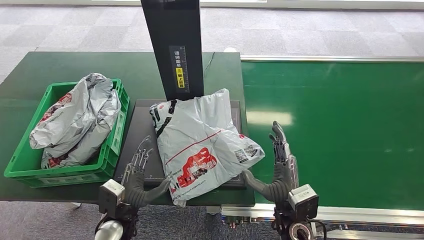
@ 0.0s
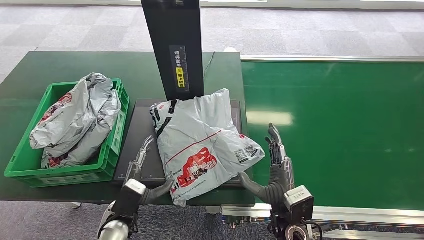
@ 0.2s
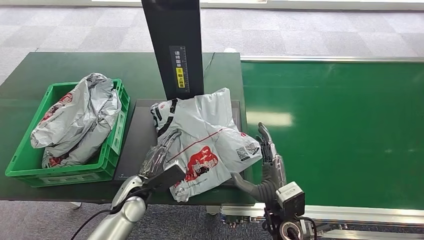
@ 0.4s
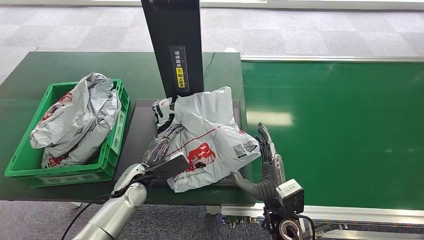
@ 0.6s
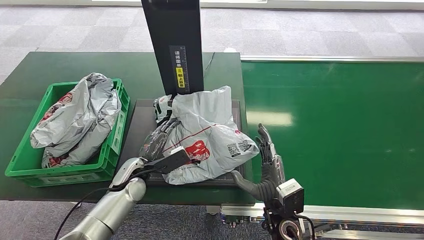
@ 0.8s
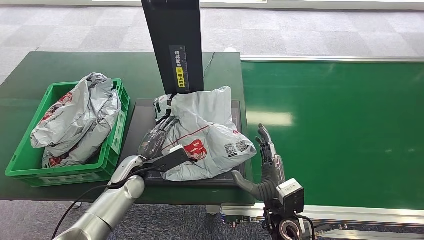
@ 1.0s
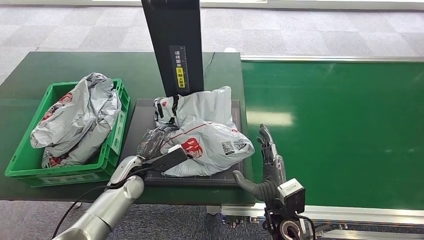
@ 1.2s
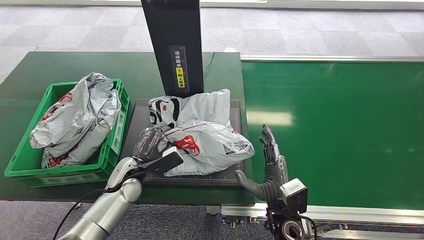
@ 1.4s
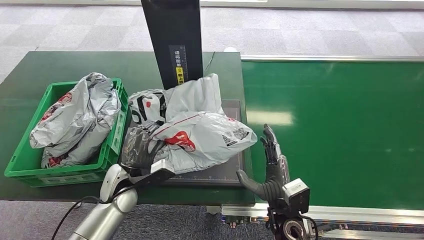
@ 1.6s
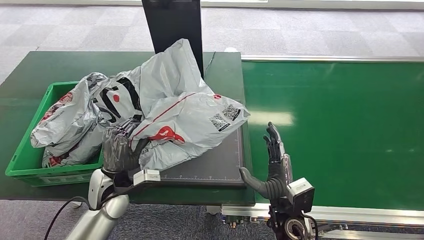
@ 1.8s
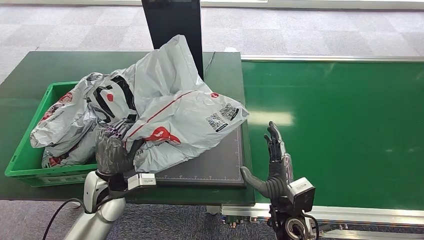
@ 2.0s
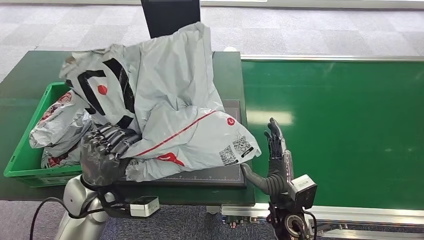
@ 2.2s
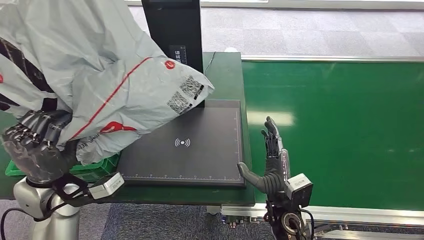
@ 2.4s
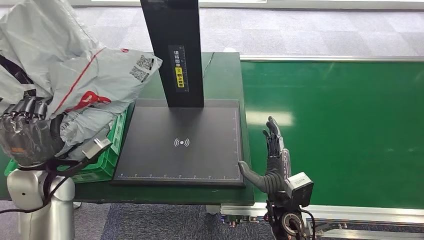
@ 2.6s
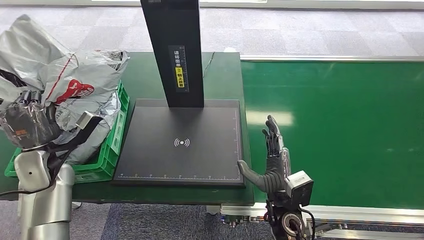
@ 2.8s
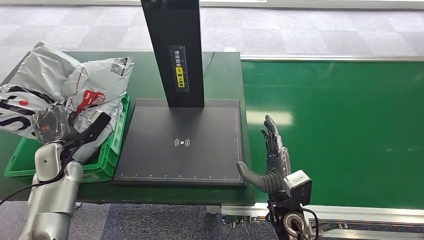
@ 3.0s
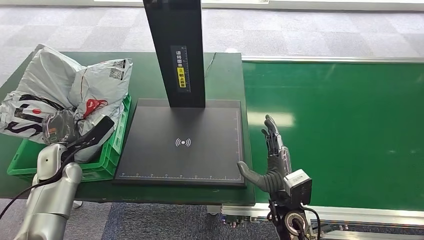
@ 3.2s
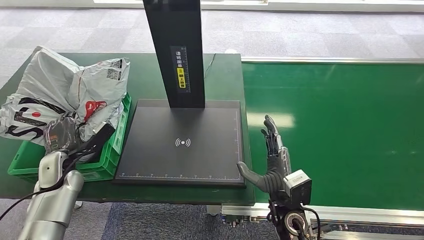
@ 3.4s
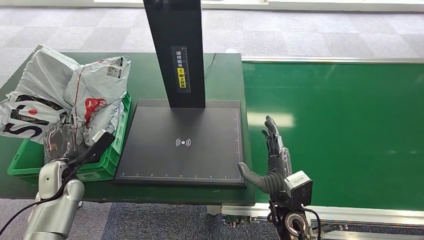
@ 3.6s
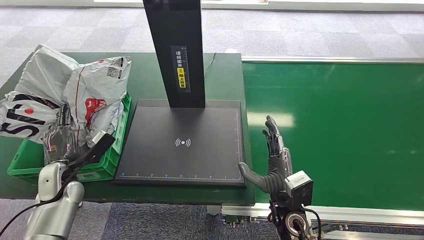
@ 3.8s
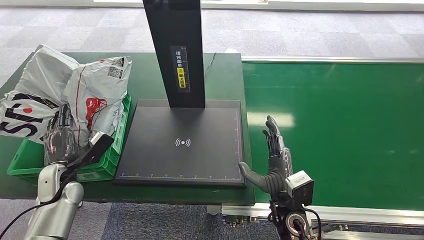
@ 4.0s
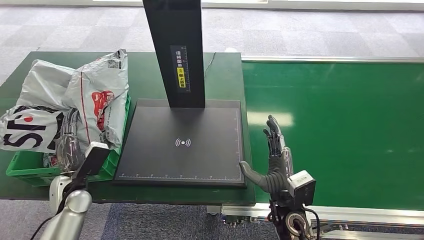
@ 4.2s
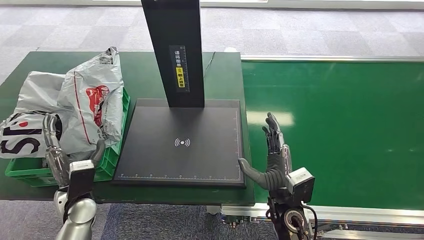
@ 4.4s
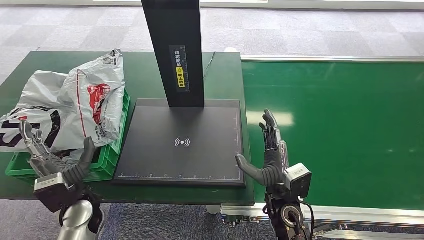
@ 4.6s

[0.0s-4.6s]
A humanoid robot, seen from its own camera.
Step, 4.4s to 4.6s: Place the package into the parcel locker.
0.0s to 1.6s: The left hand is displaced forward by roughly 10 cm.
3.0s to 4.6s: The left hand heads to the right and backward, covering about 15 cm.
